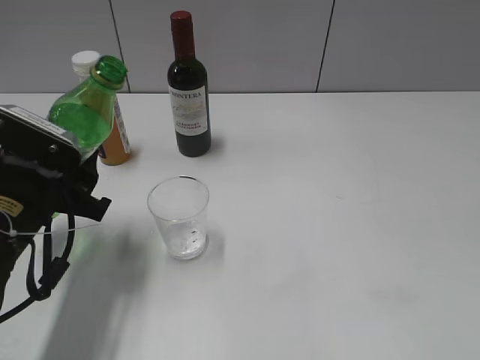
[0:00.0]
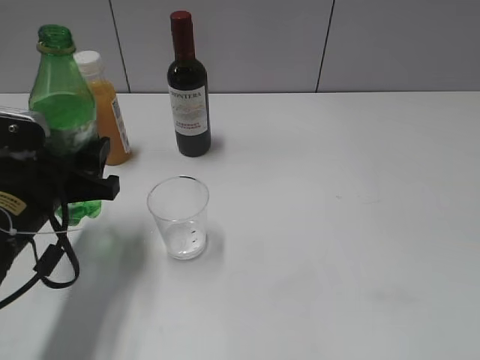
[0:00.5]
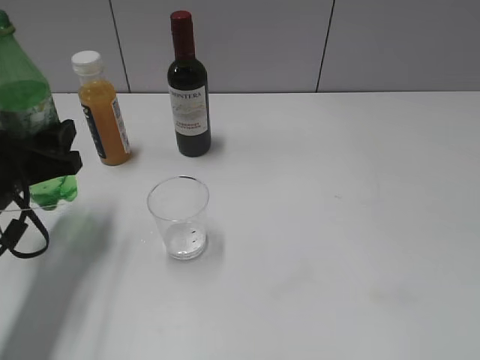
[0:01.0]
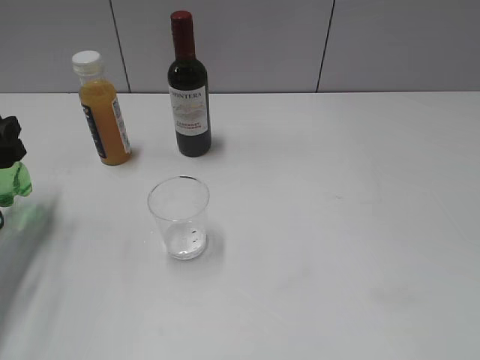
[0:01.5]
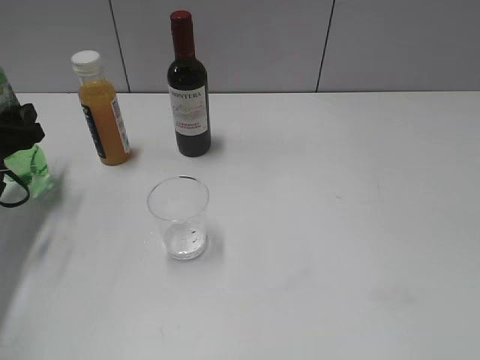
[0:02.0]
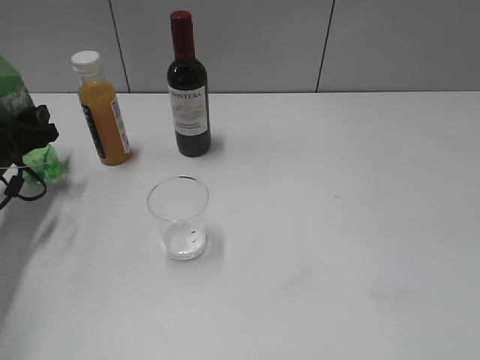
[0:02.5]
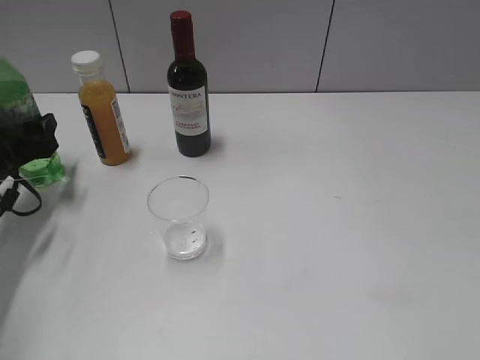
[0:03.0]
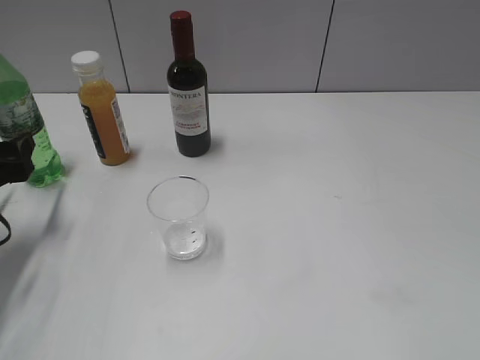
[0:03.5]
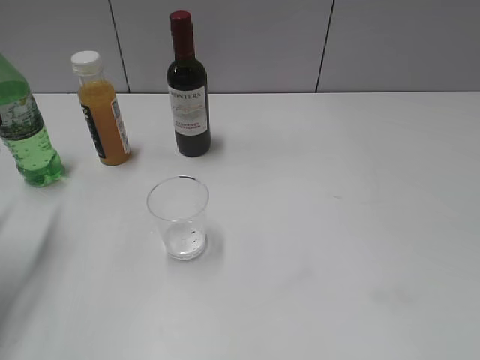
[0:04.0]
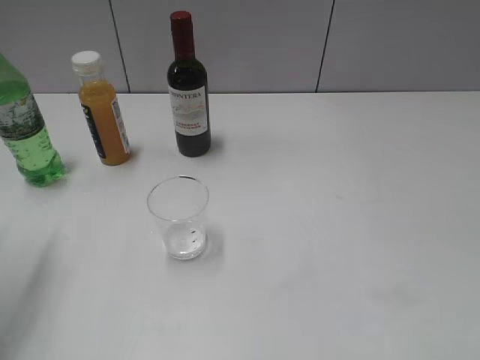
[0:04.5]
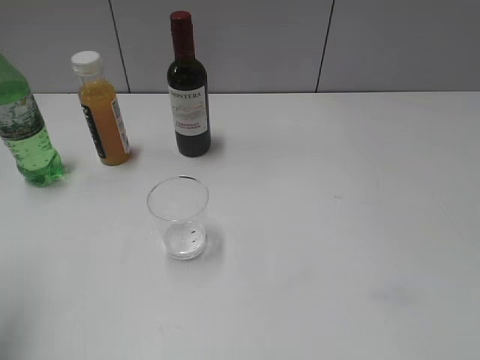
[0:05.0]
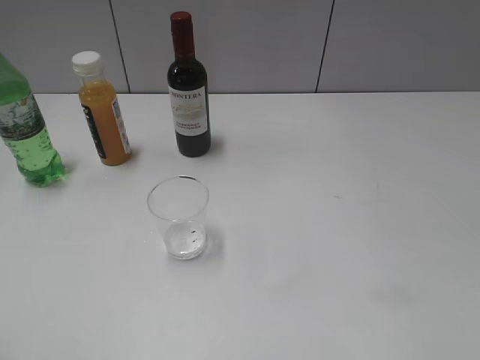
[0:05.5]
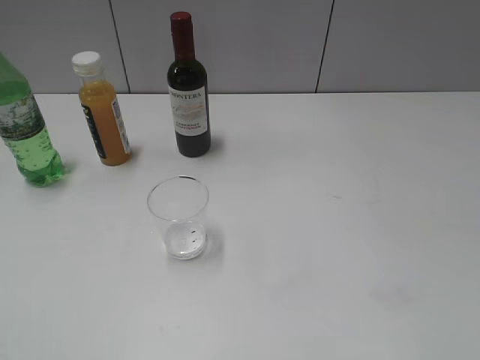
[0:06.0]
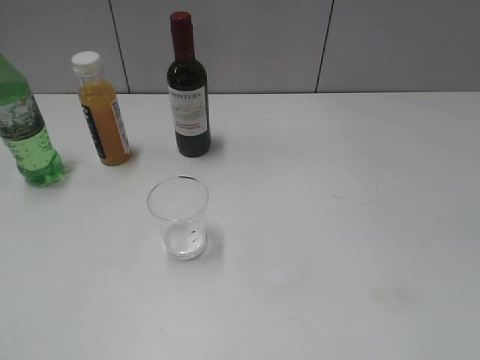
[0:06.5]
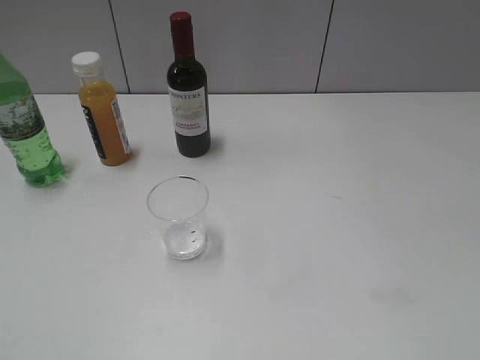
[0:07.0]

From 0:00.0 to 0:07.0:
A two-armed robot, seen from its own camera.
Step, from 0:00.0 to 0:03.5: Place the sprite bottle on the table with left gripper.
From 0:00.0 to 0:02.0: The left gripper moves to the left and forward, approximately 15 cm.
From 0:02.0 to 0:03.5: The left gripper is displaced backward by about 5 cm, and opens.
From 0:03.5 to 0:05.0: The left gripper moves upward and backward, approximately 20 cm.
From 0:05.0 to 0:07.0: The left gripper goes roughly 20 cm backward.

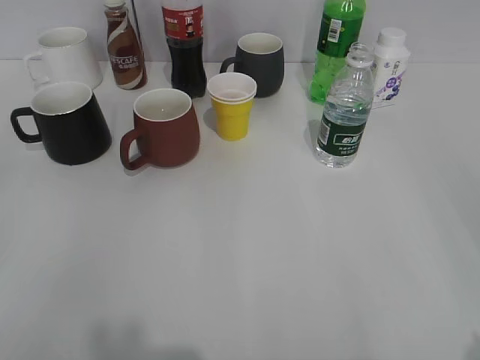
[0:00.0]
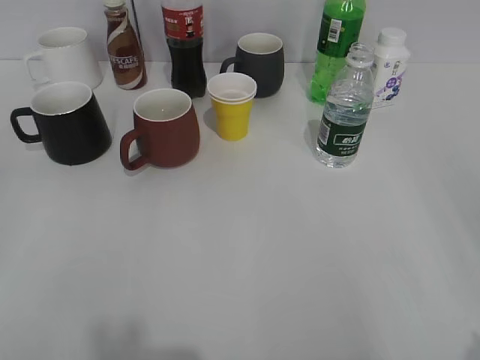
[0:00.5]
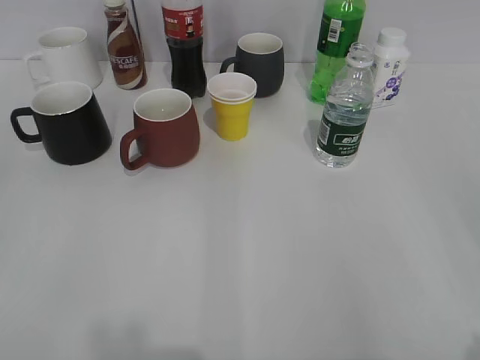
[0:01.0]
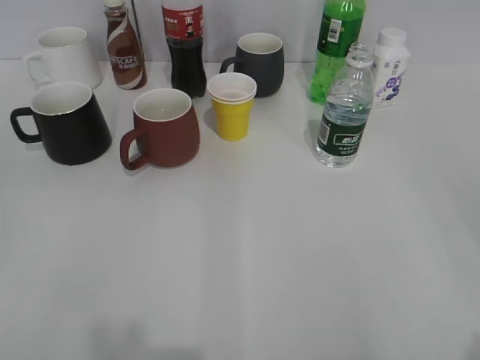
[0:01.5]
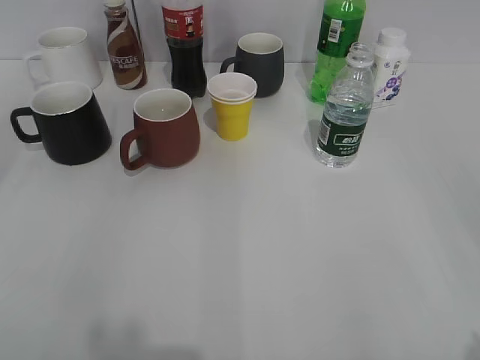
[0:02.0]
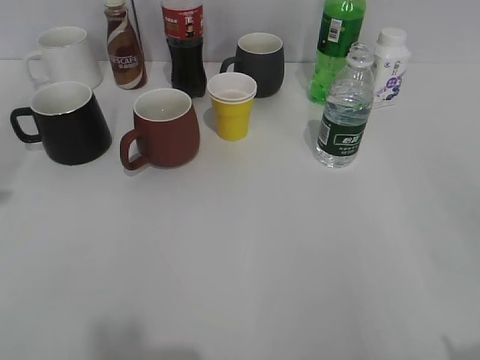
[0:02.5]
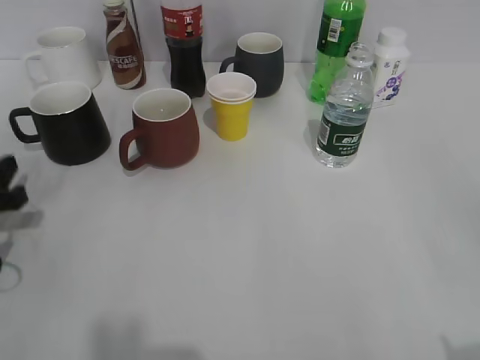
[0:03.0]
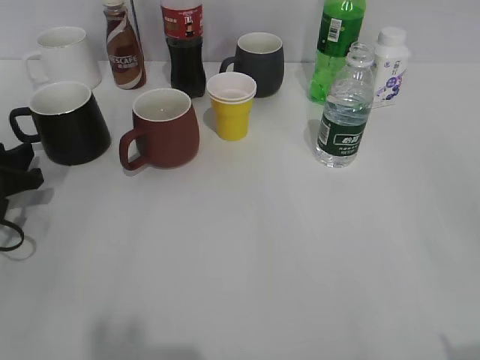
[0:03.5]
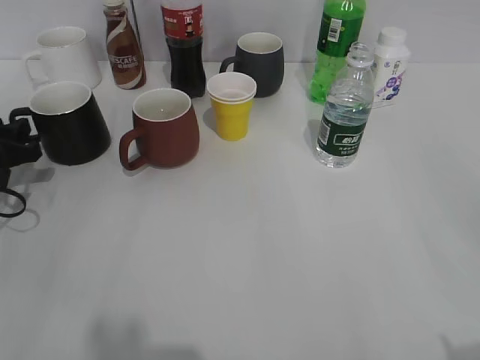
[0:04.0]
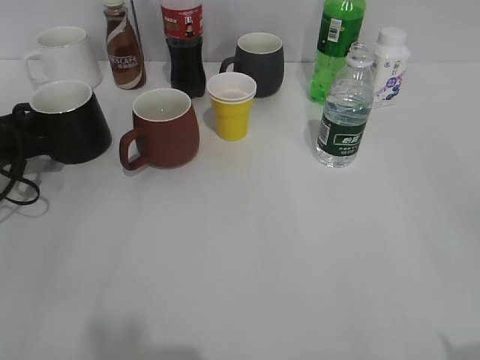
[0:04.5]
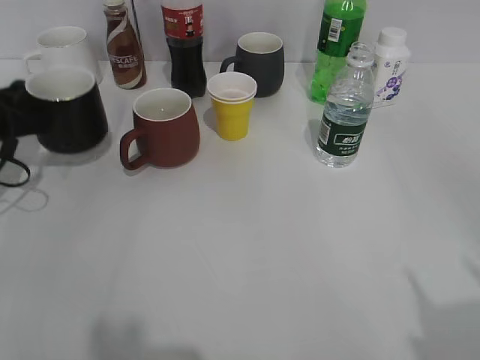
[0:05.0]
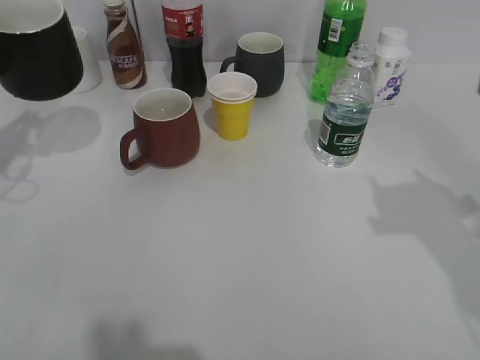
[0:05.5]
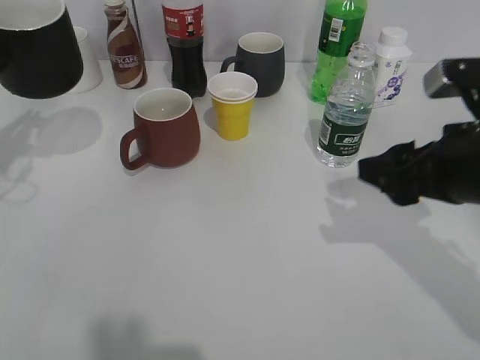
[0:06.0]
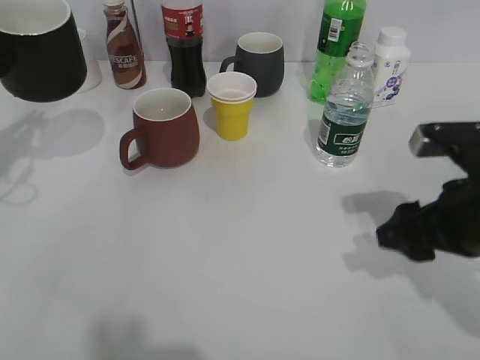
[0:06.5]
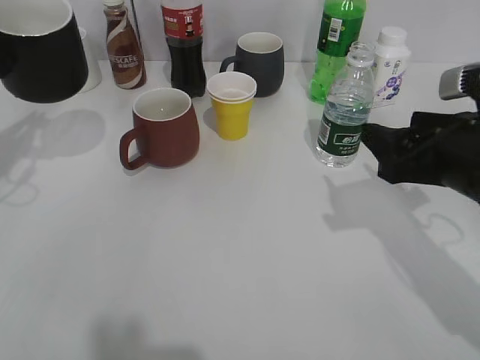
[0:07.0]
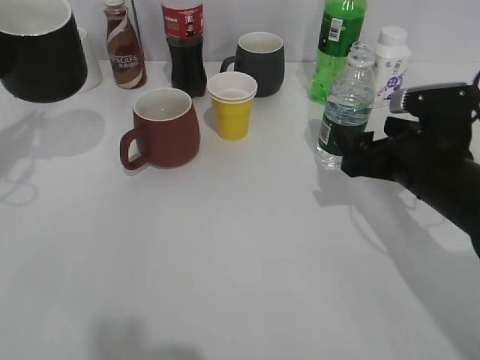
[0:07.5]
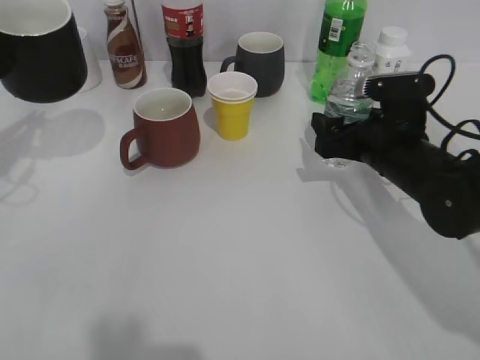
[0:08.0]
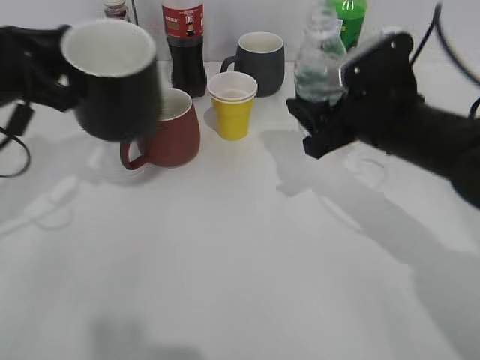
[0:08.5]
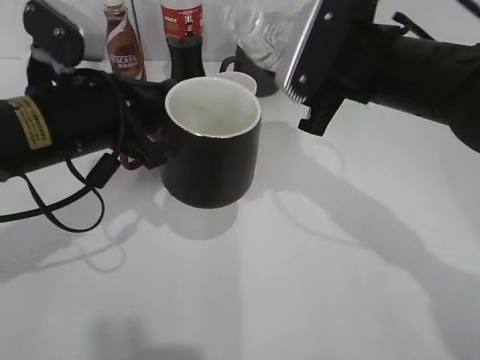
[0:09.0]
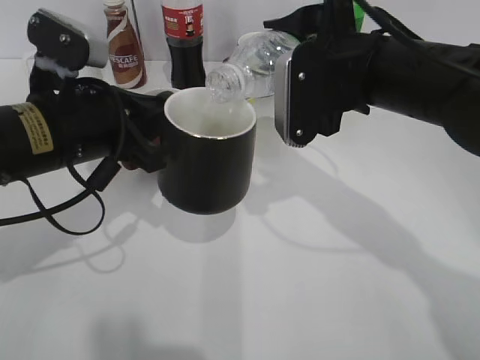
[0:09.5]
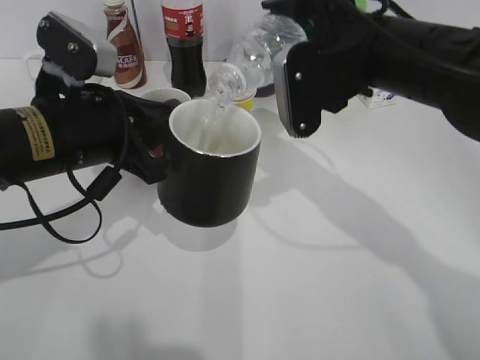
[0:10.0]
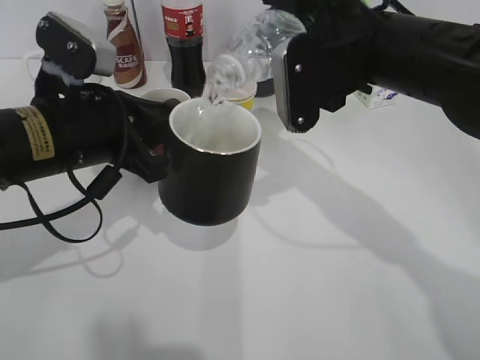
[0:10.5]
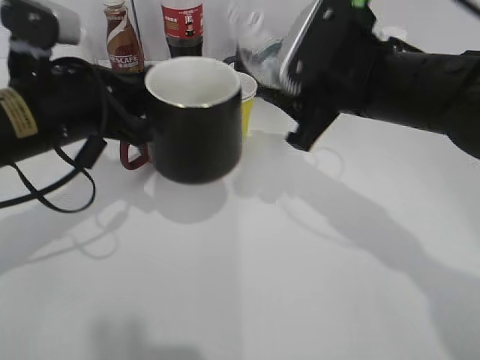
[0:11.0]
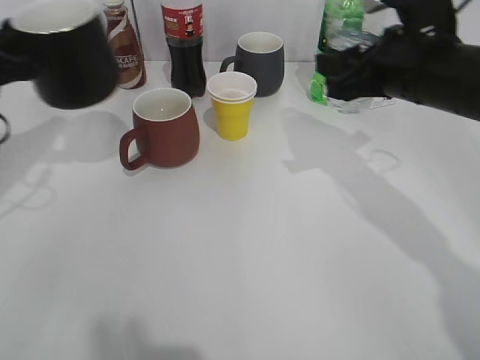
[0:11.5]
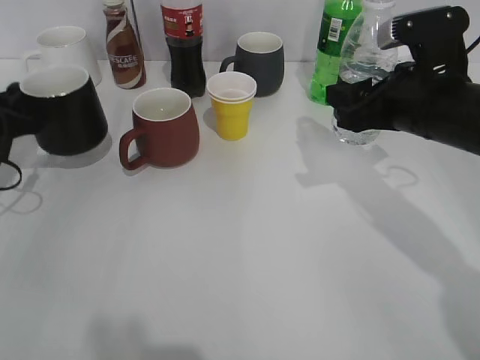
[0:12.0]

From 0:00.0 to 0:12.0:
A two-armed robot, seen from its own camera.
Step, from 0:02.0 to 0:04.5: Grasp the black cup with left gripper.
Step, from 0:05.5 to 0:08.0: Grasp the bottle with water with right gripper.
Step, from 0:08.5 to 0:11.0: Pour the water from bottle to cup with right gripper.
From 0:02.0 to 0:04.0: The left gripper heads forward and downward, covering about 35 cm.
From 0:04.0 to 0:06.0: The right gripper goes some 25 cm forward, and closes its fingers. Meanwhile the left gripper goes some 15 cm upward, and closes up.
From 0:06.0 to 0:08.0: The right gripper shifts approximately 15 cm forward and downward, and opens its fingers.
From 0:08.0 to 0:10.0: The left gripper travels to the right by approximately 15 cm. Meanwhile the right gripper moves upward and to the left, some 15 cm, and closes.
From 0:10.0 to 0:12.0: The right gripper goes about 10 cm to the right and downward. The left gripper travels to the left and forward by about 20 cm.

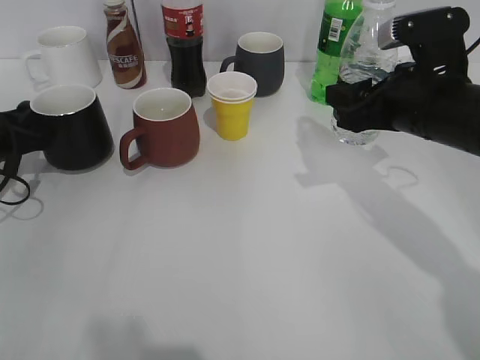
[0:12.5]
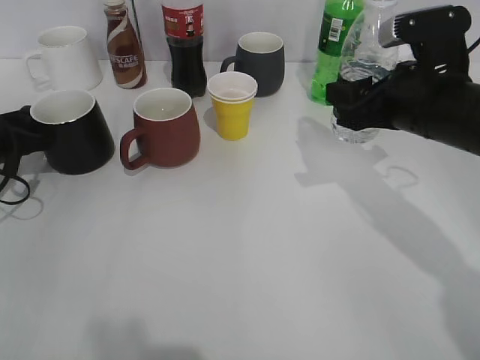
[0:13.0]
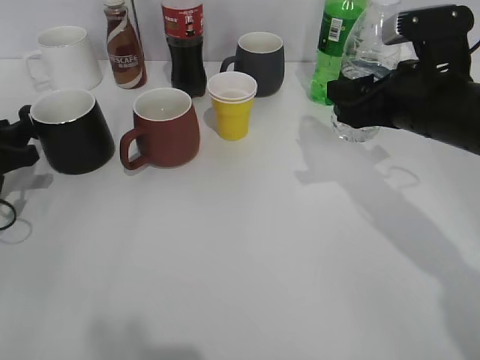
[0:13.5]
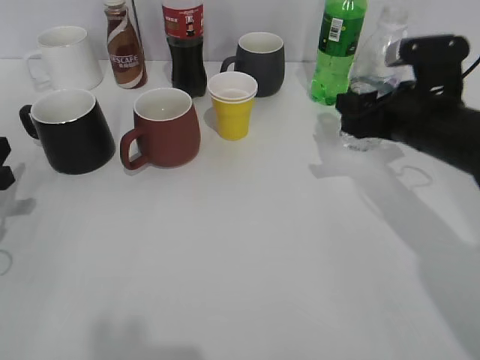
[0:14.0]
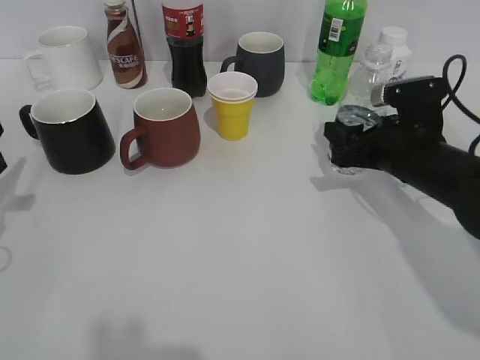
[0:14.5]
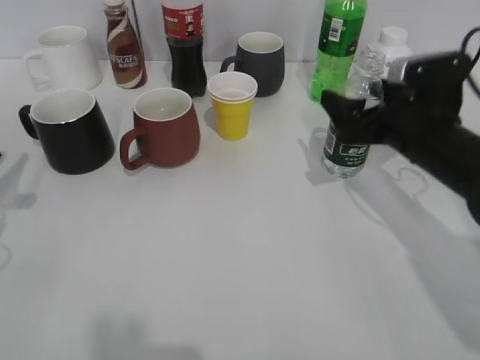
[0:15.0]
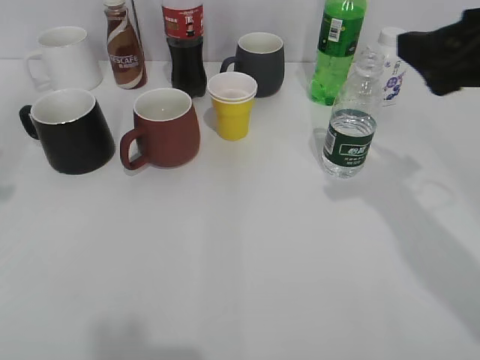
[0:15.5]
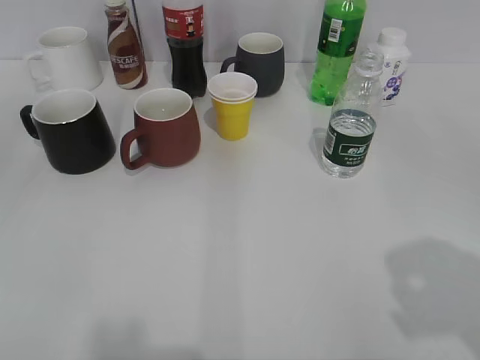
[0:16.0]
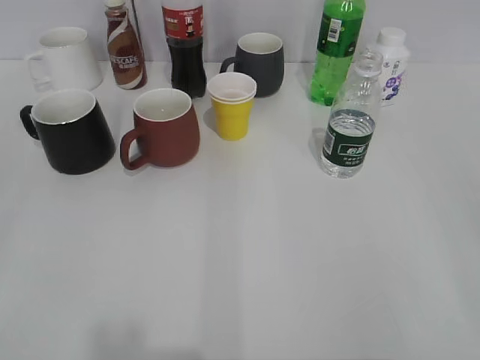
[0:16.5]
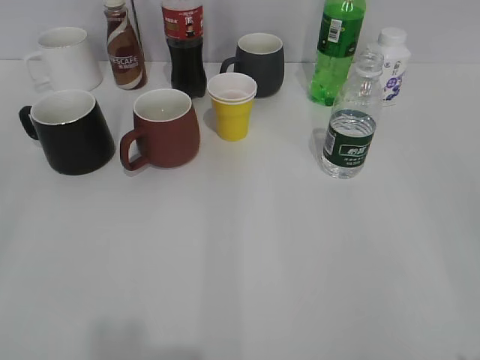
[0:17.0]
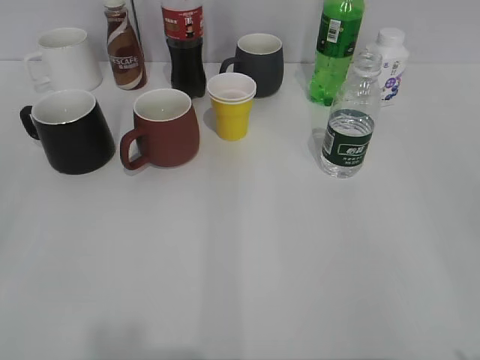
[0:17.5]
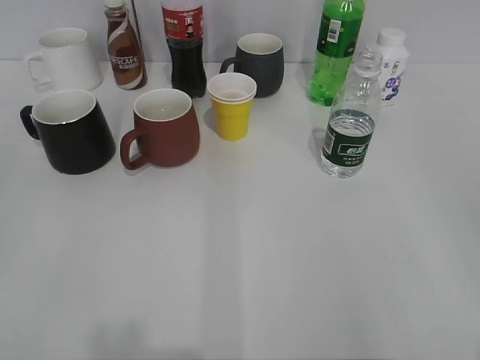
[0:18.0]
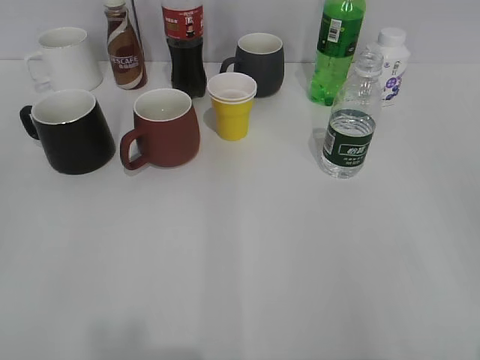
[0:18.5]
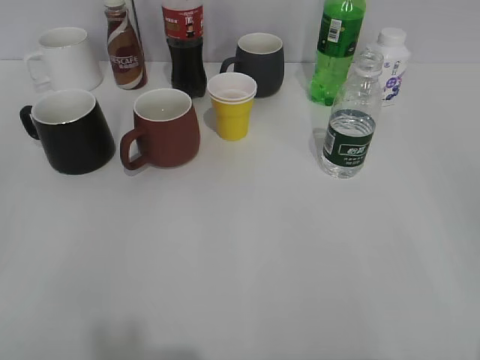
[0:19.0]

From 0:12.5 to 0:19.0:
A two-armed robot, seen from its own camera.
Step, from 0:13.5 to 0:14.5: Place the water bottle on the table with right gripper.
From 0:12.5 to 0:14.5: The right gripper moves downward, roughly 10 cm, while the left gripper travels backward by roughly 10 cm, and opens.
From 0:14.5 to 0:17.0: The grippers both shift backward and upward by some 30 cm. The right gripper opens. The left gripper opens up.
